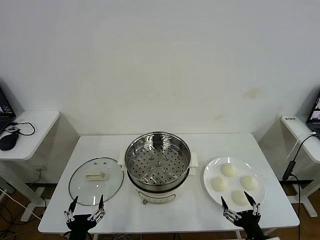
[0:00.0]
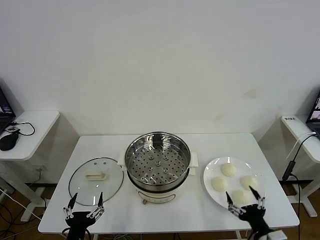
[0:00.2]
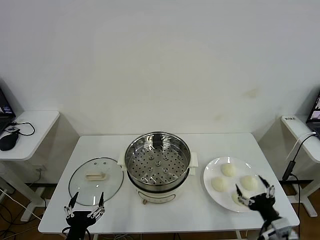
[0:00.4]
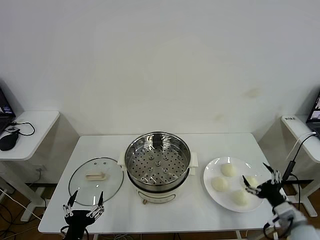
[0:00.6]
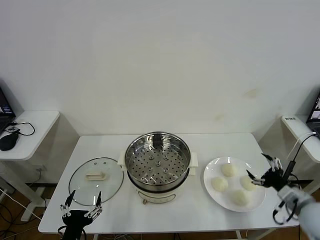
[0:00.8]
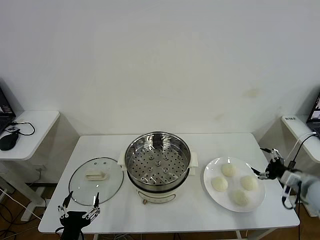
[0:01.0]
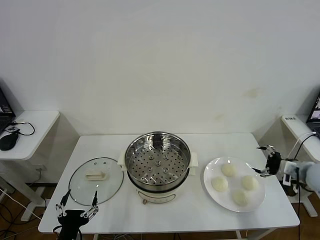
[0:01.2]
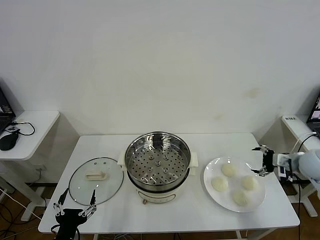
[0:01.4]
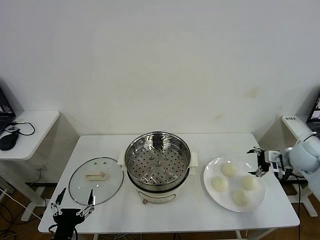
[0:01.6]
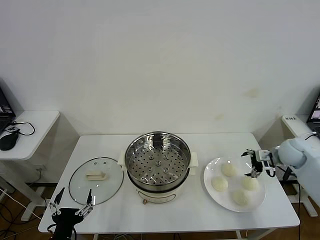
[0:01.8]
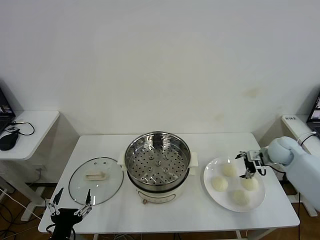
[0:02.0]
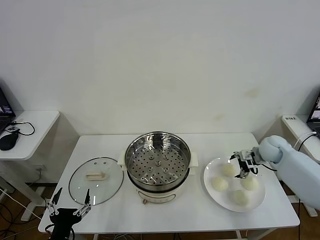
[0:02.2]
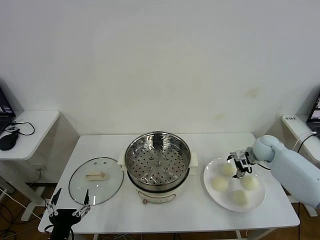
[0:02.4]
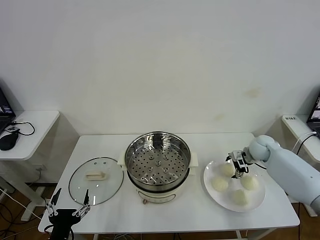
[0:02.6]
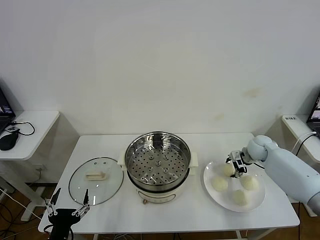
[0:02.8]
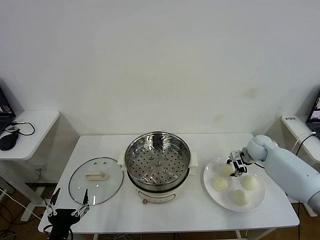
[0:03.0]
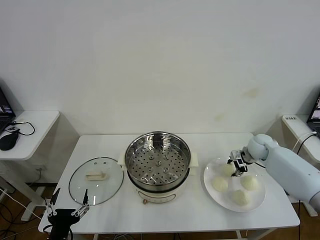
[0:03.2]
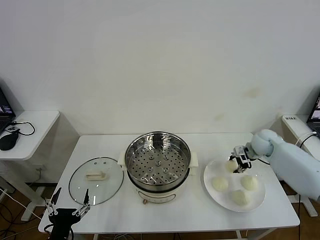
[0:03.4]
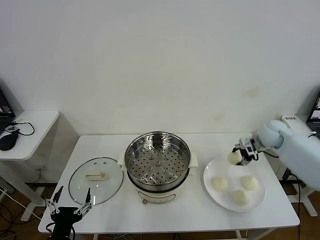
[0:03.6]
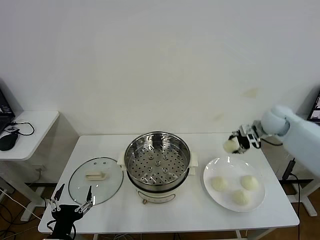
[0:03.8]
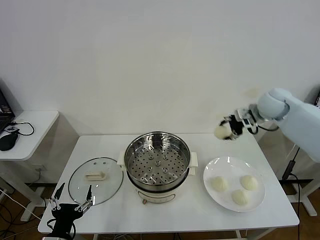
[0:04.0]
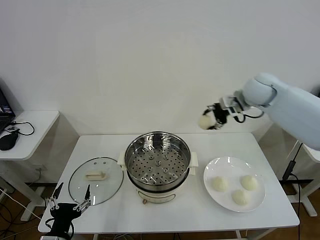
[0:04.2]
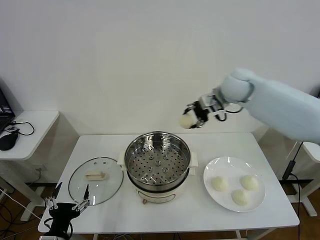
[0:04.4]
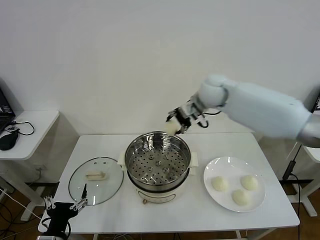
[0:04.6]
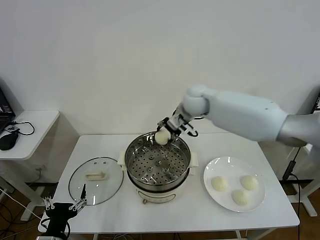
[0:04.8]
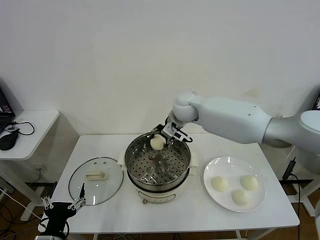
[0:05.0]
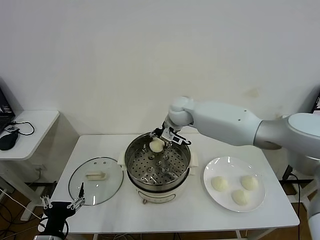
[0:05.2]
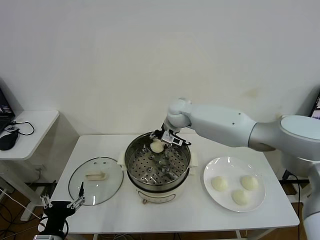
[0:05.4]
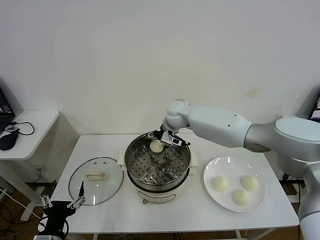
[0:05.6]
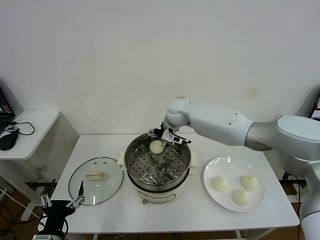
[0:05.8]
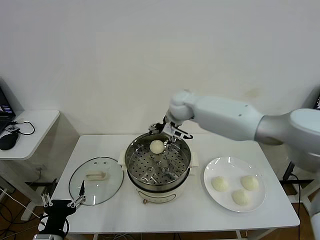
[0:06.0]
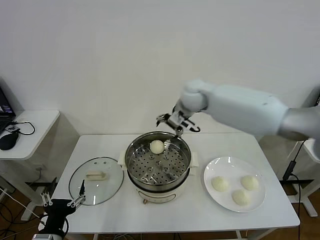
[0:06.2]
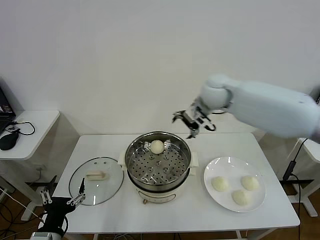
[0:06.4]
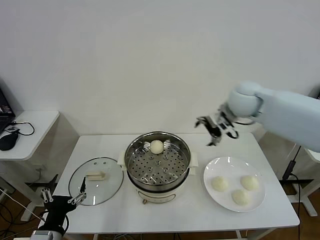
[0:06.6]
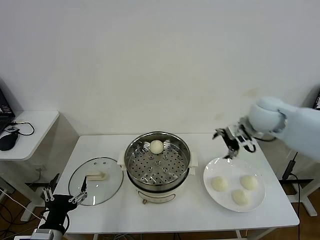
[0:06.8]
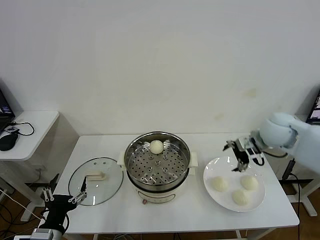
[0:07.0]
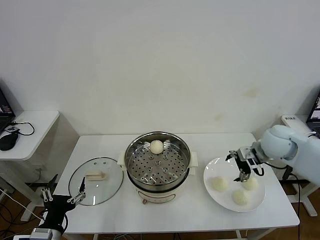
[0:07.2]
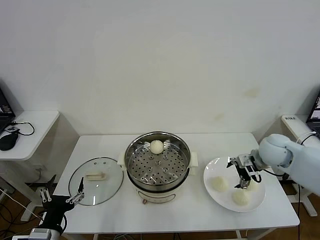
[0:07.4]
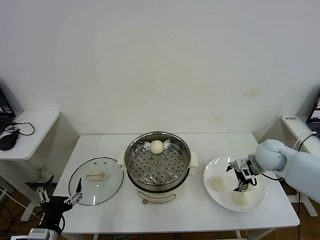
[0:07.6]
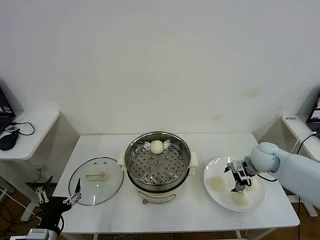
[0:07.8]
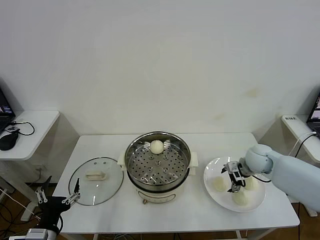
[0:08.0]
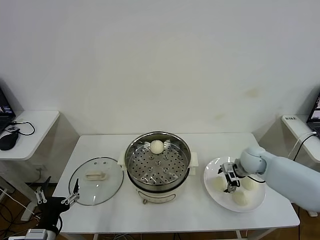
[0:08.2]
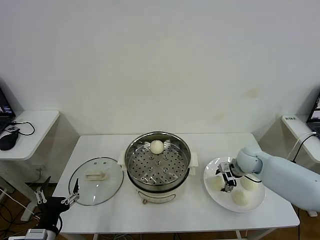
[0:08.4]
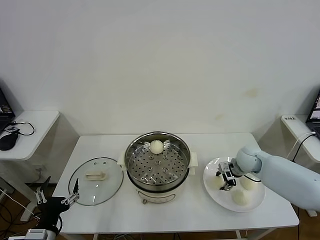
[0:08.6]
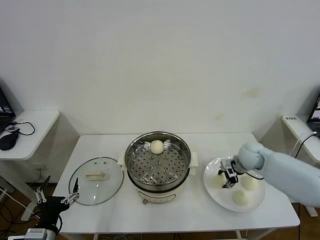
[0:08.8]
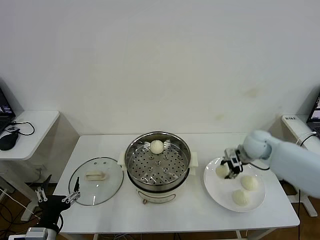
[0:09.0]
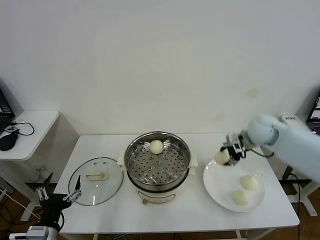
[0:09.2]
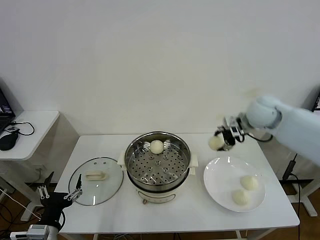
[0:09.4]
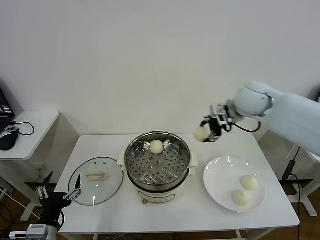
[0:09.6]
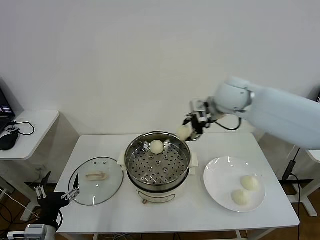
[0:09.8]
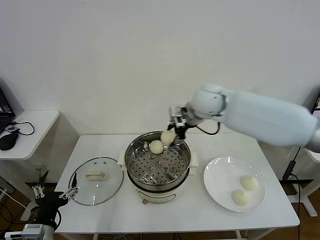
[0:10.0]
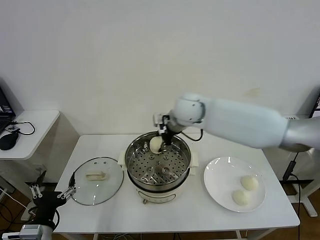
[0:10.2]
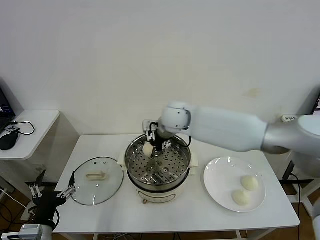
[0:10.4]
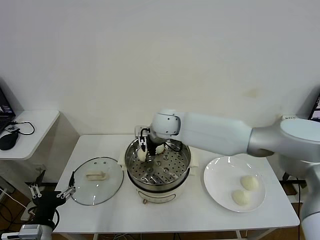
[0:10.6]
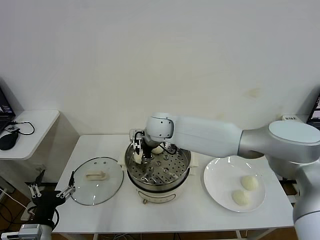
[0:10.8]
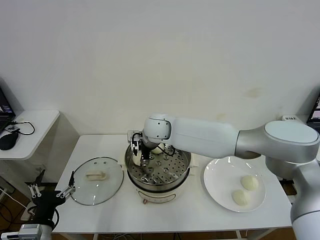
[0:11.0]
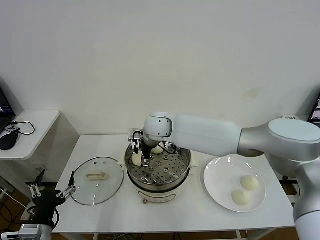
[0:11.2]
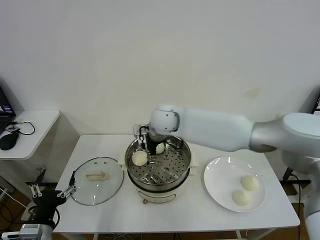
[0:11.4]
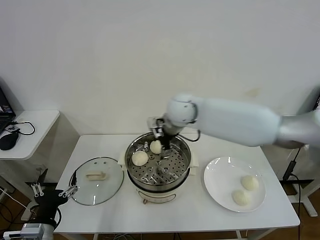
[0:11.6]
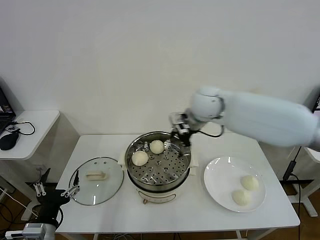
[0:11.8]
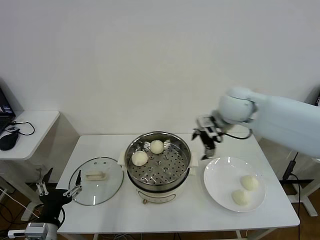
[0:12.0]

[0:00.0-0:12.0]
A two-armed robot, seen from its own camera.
Task of the whole recording: take steamed baozi put them in steamer then cover it.
Step, 0:00.0 to 0:02.8: Grasp the baozi in the plate with right gripper.
Step, 0:03.0 to 0:05.8: Place the baozi on the steamer with right gripper.
Step, 0:06.0 to 0:08.4: Grasp the baozi in the plate with right gripper.
Step, 0:08.8 to 0:11.0: Place the baozi on the steamer with right gripper.
0:01.6 to 0:03.0: The right gripper is displaced forward, downward and to the left by about 15 cm, and closes its fingers.
0:03.0 to 0:04.4: The right gripper goes approximately 30 cm upward and to the left.
0:04.4 to 0:06.0: The right gripper is displaced to the left and downward by approximately 15 cm, and opens up.
0:06.0 to 0:07.6: The right gripper moves to the right and backward, some 30 cm.
0:07.6 to 0:09.0: The right gripper closes its fingers.
0:09.0 to 0:10.4: The right gripper shifts approximately 30 cm to the left.
0:10.4 to 0:12.0: The right gripper goes some 15 cm to the right, and opens.

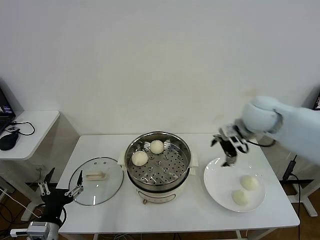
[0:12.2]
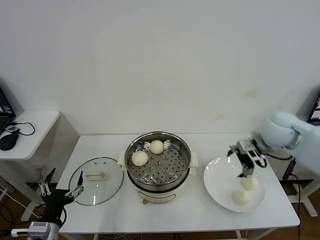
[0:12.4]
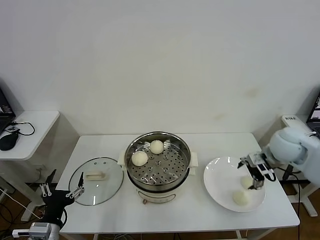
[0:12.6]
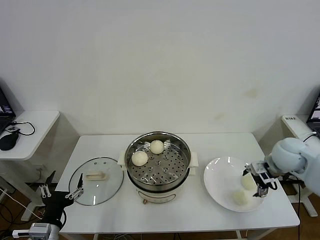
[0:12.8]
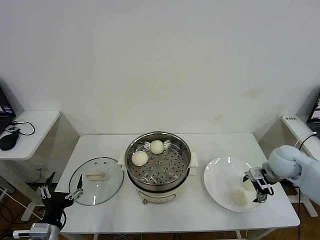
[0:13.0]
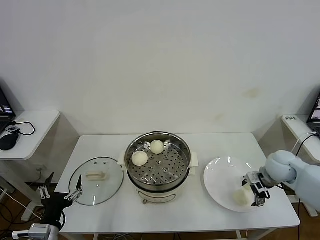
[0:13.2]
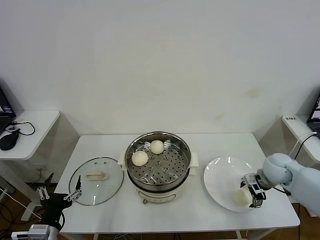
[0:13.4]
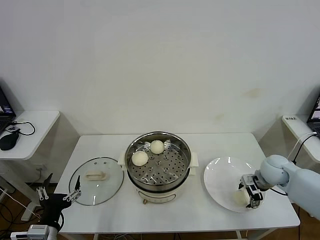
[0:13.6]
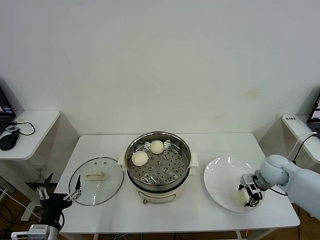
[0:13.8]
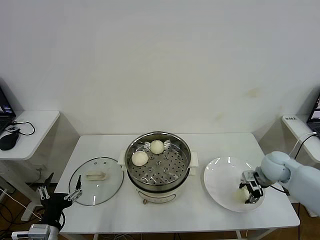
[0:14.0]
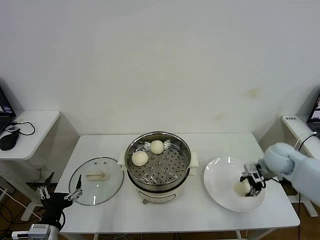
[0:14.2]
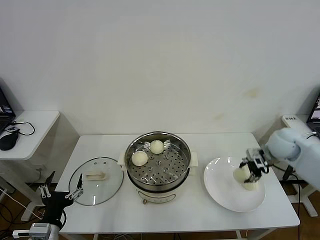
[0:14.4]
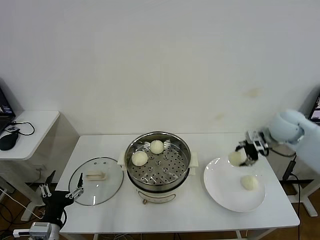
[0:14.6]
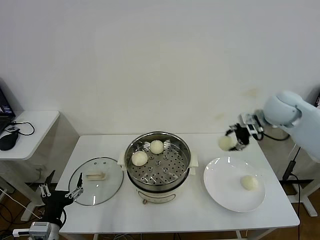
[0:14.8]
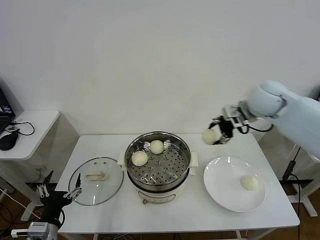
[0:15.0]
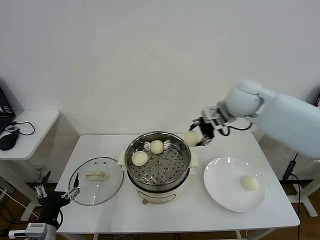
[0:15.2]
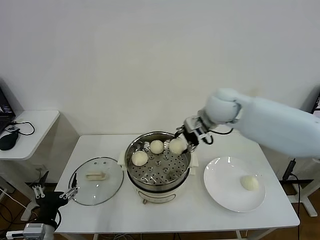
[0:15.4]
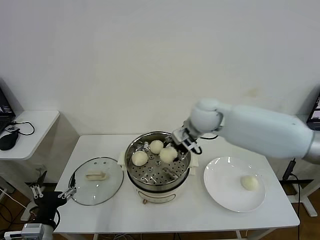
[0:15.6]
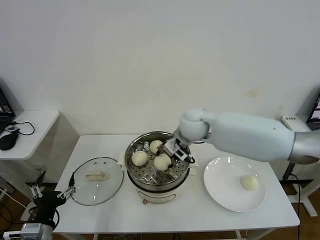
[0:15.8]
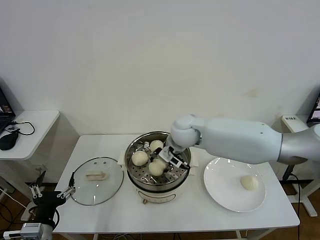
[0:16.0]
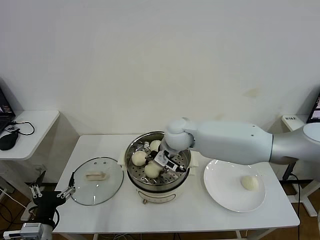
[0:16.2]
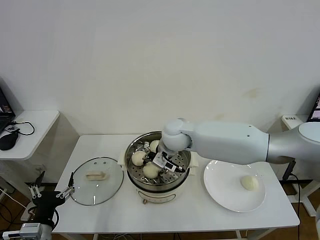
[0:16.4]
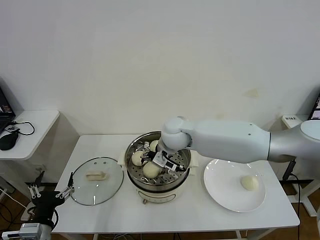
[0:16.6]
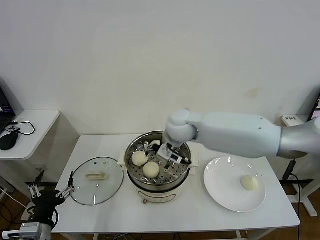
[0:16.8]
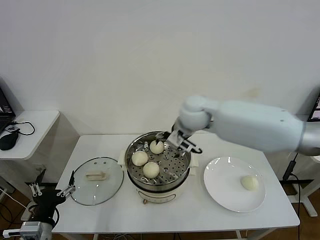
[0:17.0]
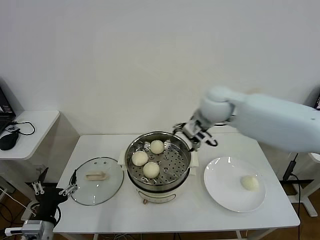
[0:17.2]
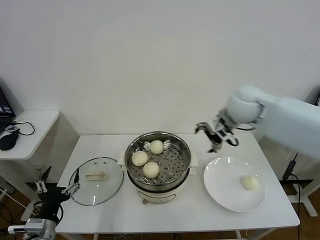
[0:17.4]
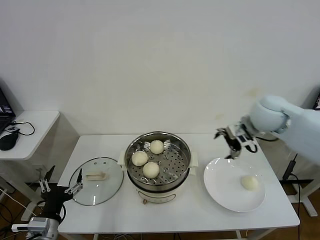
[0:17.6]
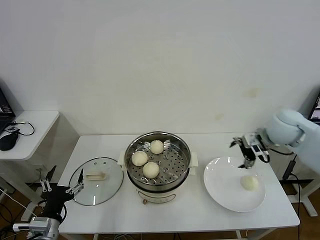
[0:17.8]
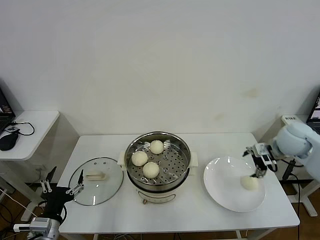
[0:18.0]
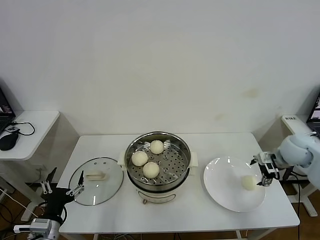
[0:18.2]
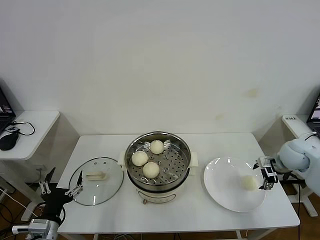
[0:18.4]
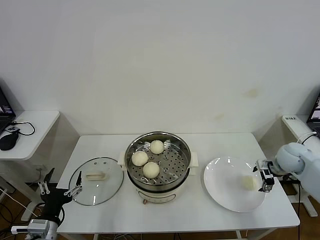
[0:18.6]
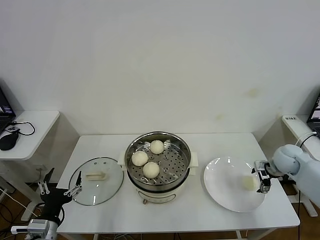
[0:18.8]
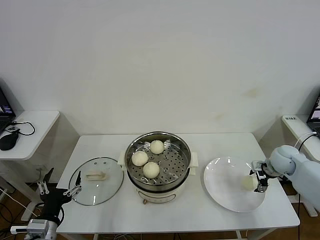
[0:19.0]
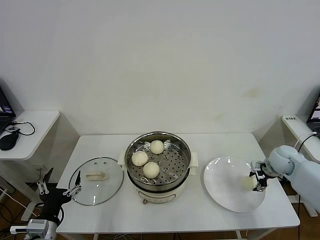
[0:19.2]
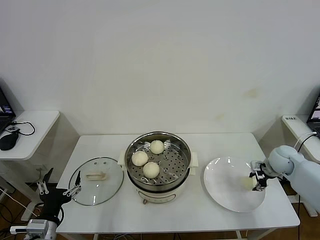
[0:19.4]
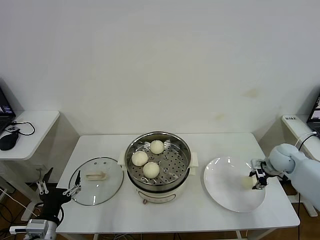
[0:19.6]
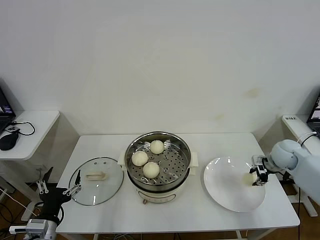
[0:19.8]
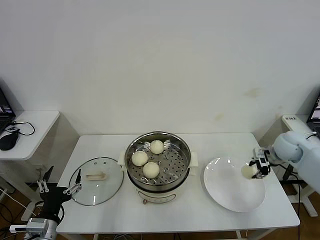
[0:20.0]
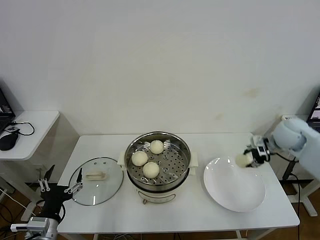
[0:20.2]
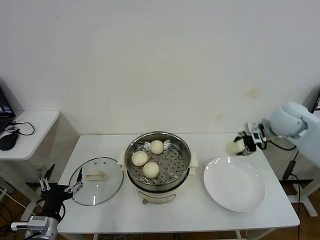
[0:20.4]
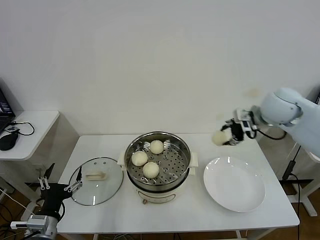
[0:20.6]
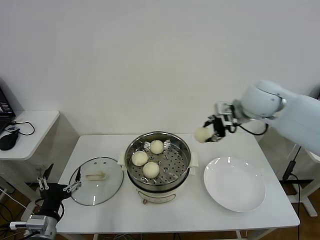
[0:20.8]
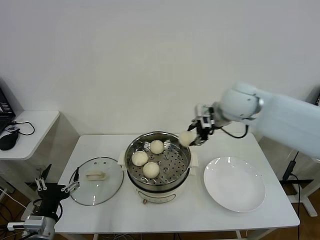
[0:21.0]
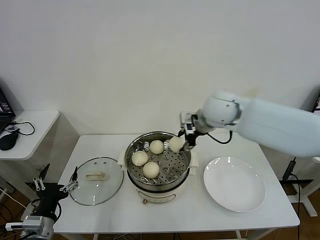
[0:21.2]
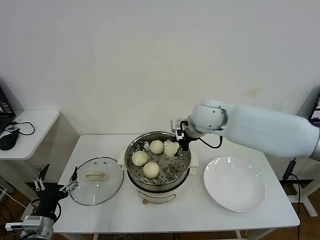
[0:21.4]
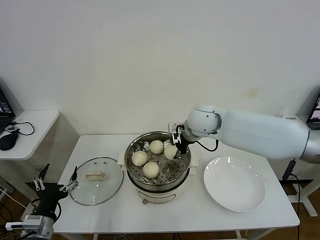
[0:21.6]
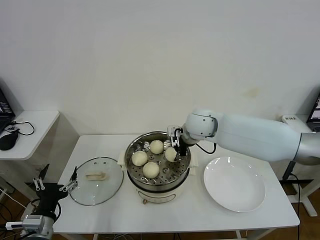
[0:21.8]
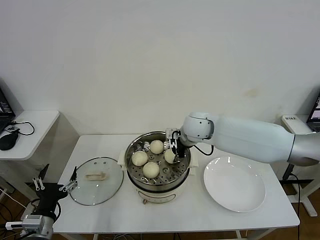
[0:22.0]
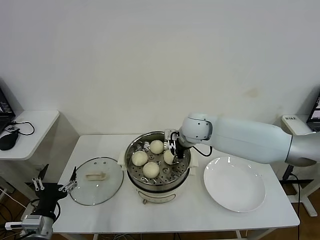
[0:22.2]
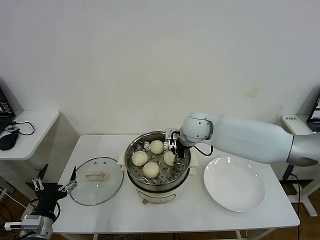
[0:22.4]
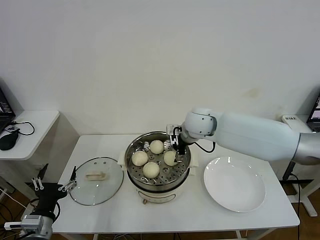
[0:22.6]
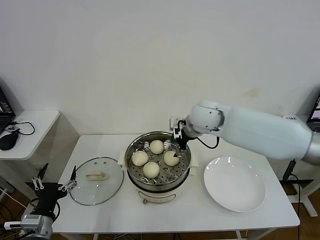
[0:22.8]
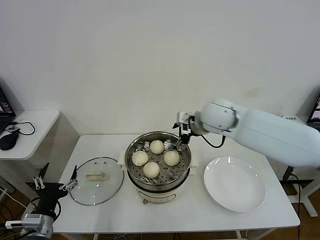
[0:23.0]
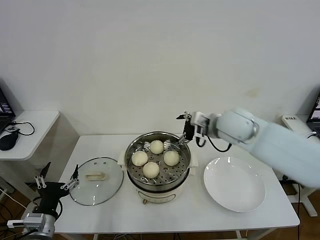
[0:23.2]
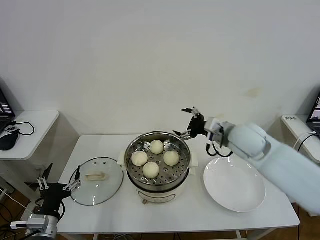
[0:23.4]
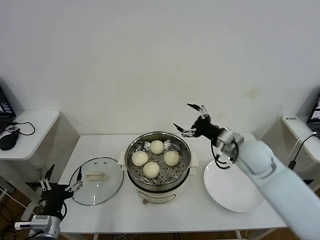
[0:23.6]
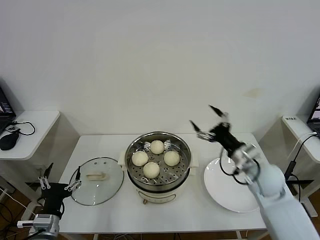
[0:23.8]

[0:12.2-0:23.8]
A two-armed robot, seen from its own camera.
Task of the whole recording: take steamed baozi put them in steamer then cover it.
Step, 0:12.2 to 0:13.8: Grasp the baozi in the plate with right gripper.
Step, 0:14.0 to 0:16.6: Place the baozi on the steamer with right gripper.
Step, 0:16.8 to 0:19.6: Grasp the baozi in the plate with right gripper.
Step, 0:19.8 to 0:22.6: Place the baozi on the steamer with right gripper.
0:12.2 to 0:13.6: The right gripper moves downward and to the right, some 25 cm.
0:13.6 to 0:15.0: The right gripper is displaced upward and to the left by approximately 25 cm, and closes.
0:15.0 to 0:16.6: The right gripper moves to the left and downward, approximately 25 cm, and opens up.
0:16.6 to 0:18.0: The right gripper is displaced to the right by about 35 cm.
0:18.0 to 0:19.4: The right gripper shifts about 15 cm downward, and closes its fingers.
0:19.4 to 0:21.0: The right gripper is displaced upward and to the left by some 35 cm.
0:21.0 to 0:22.4: The right gripper heads downward and to the left, covering approximately 15 cm.
0:22.4 to 0:23.8: The right gripper goes approximately 25 cm to the right and backward, and opens.
